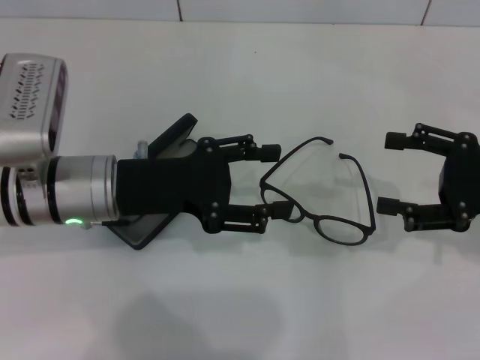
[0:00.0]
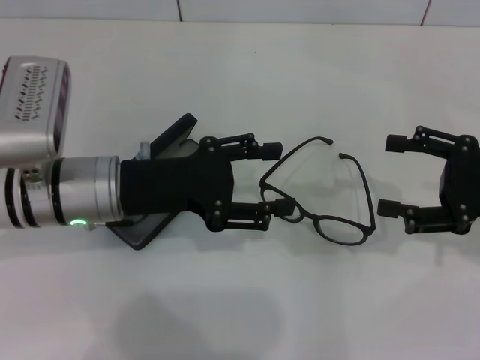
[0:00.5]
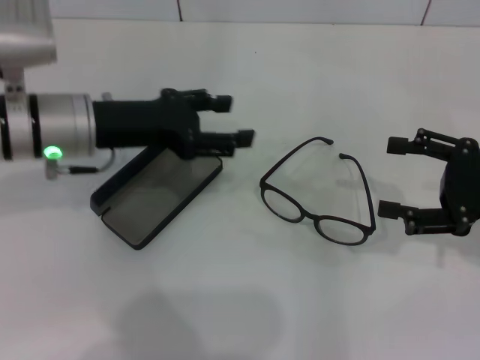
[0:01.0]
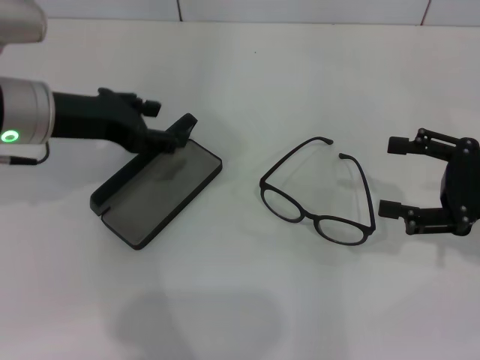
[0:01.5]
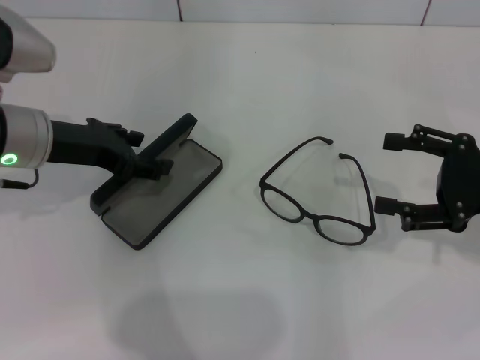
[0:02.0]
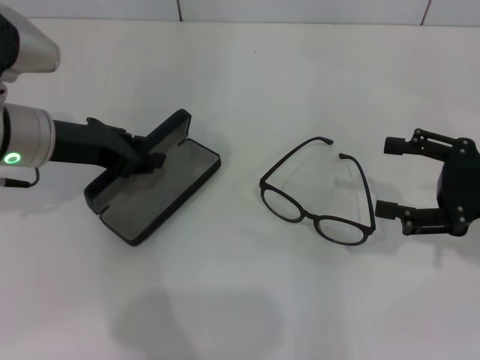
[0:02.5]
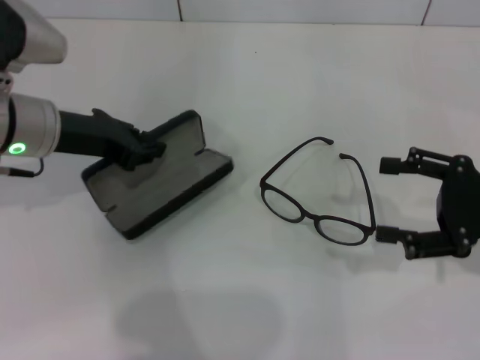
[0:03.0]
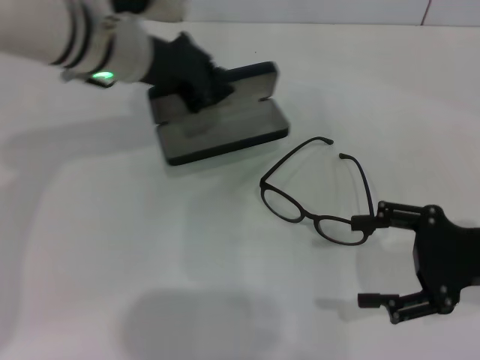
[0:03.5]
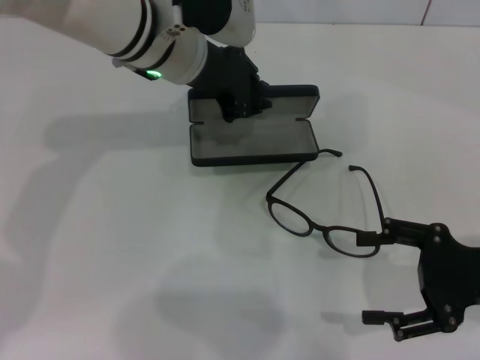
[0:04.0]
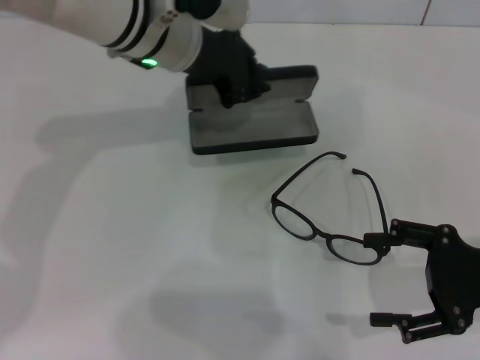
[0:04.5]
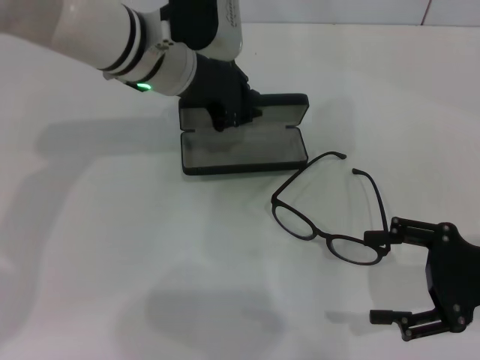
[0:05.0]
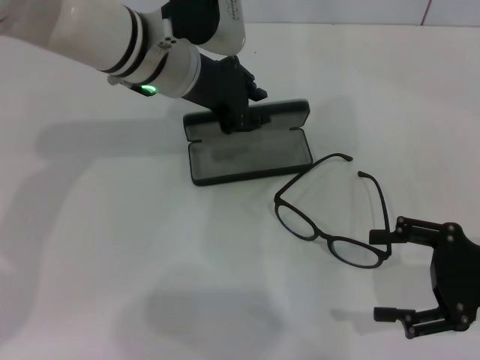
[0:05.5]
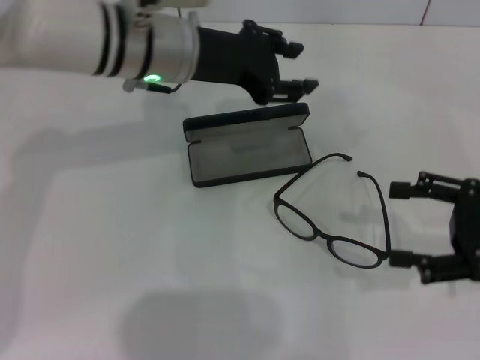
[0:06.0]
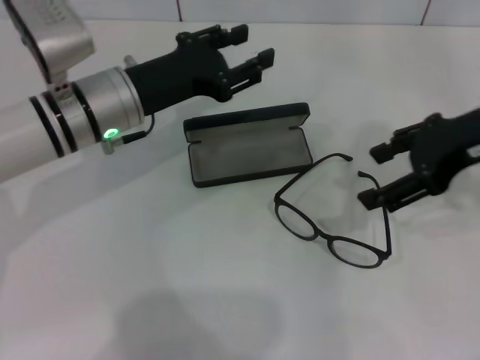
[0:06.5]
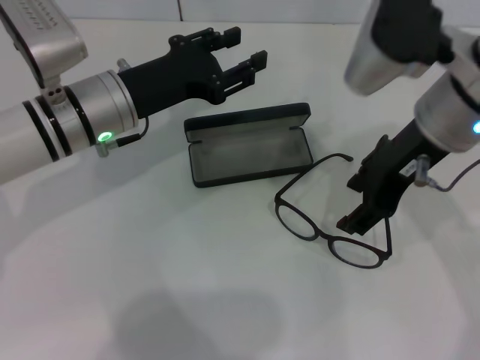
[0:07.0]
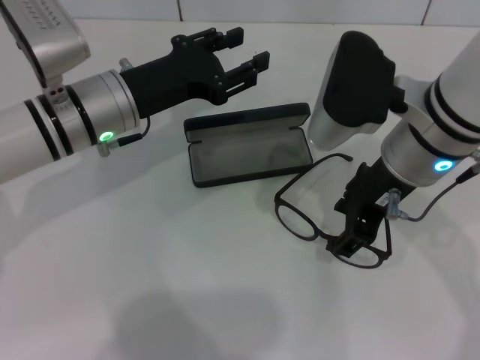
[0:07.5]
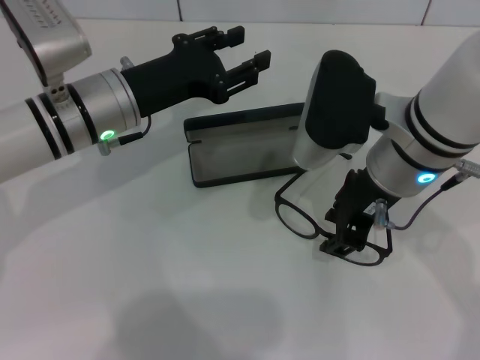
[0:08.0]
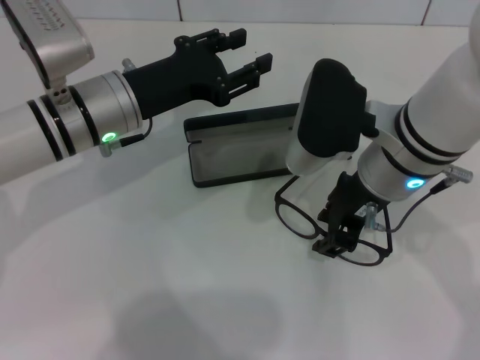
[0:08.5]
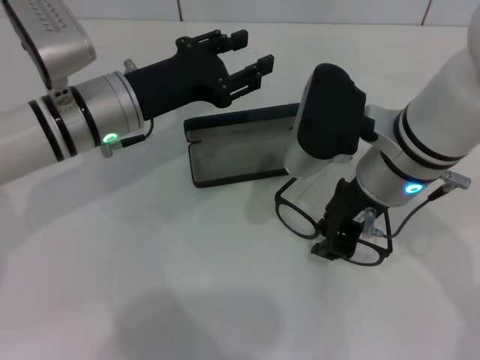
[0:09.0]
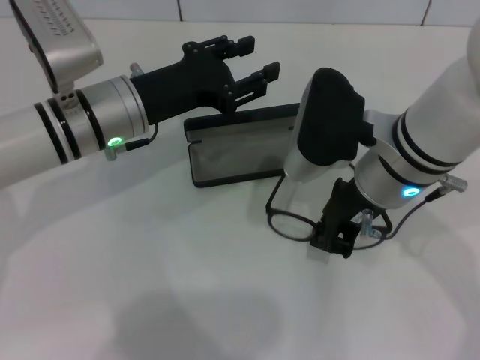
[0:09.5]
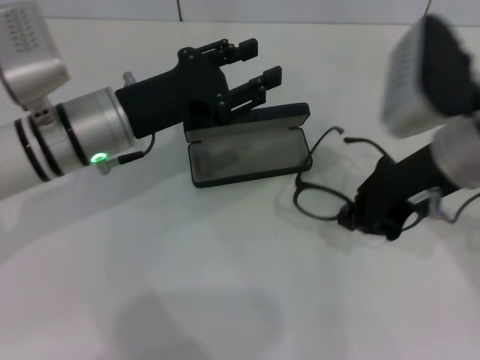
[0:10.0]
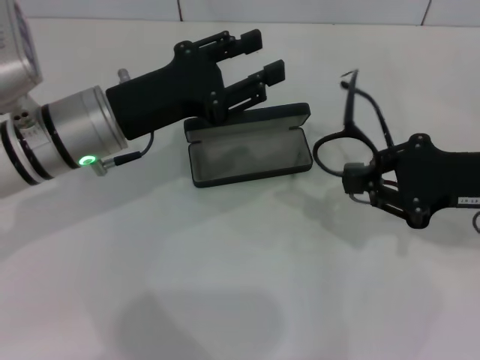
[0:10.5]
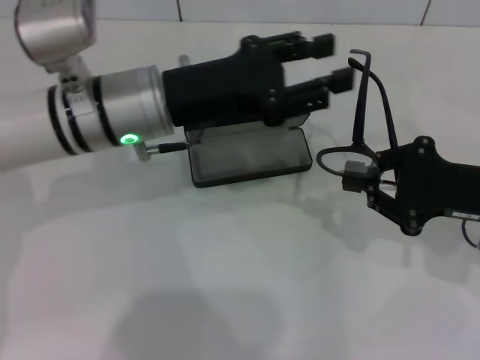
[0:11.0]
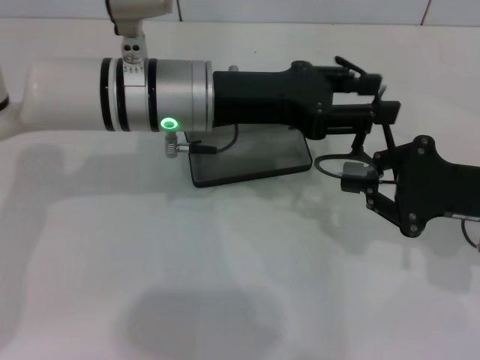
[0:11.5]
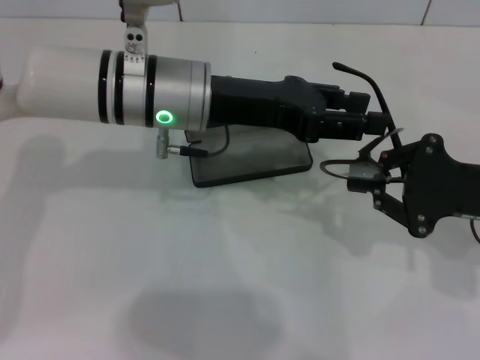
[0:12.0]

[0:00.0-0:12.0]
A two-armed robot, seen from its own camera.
Step, 0.0 to 2.5 s: Grab the glasses case with your left hand.
Step, 3.0 to 5.0 s: Place the glasses case in the center of the table with your left hand.
Step, 5.5 to 9.5 s: Grab the eyeglass frame with your right hand.
0.0 to 2.0 s: The left gripper shifts about 5 cm to the left.
2.0 to 4.0 s: The right gripper shifts by some 5 cm, while the left gripper moves to the right and forward, about 15 cm, and closes its fingers.
4.0 to 6.0 s: The left gripper opens its fingers.
6.0 to 8.0 s: The right gripper moves to the left, about 20 cm, and closes up; the left gripper heads downward and to the left, covering roughly 10 cm.
8.0 to 10.0 s: The right gripper heads to the right, covering about 5 cm, and closes its fingers.
10.0 to 12.0 s: The right gripper travels to the right and downward by roughly 10 cm. Meanwhile the left gripper travels to the right by some 5 cm.

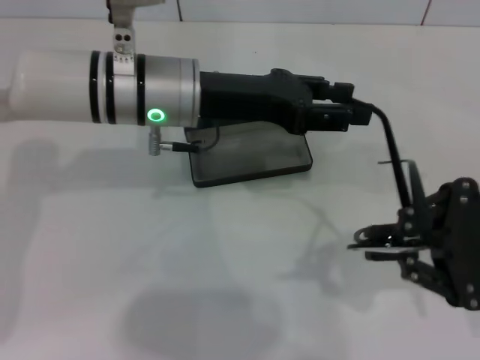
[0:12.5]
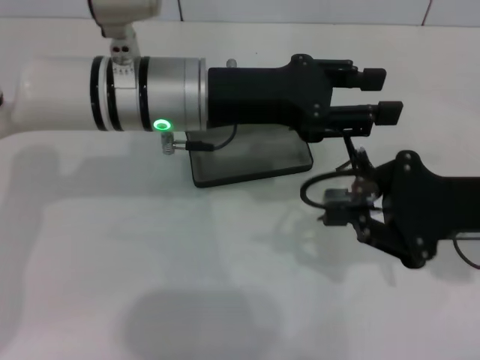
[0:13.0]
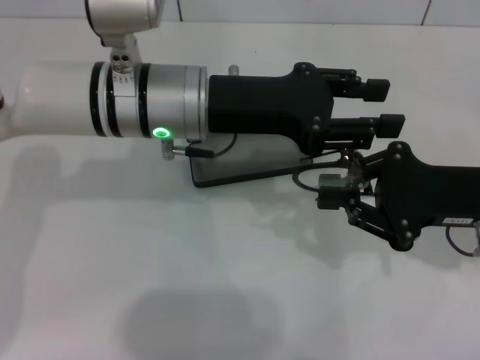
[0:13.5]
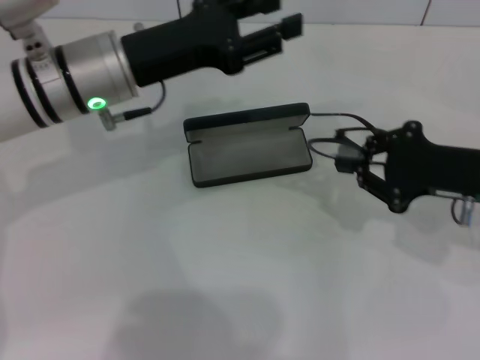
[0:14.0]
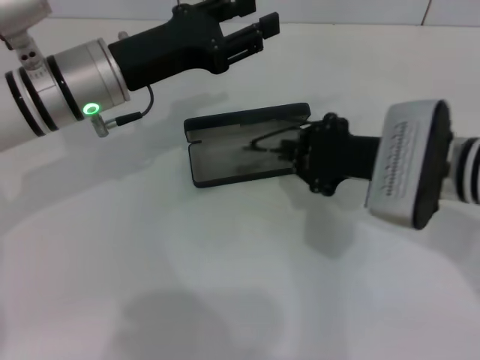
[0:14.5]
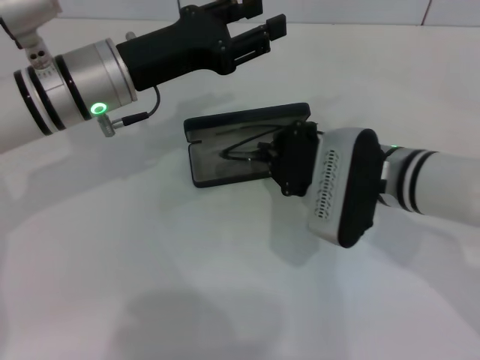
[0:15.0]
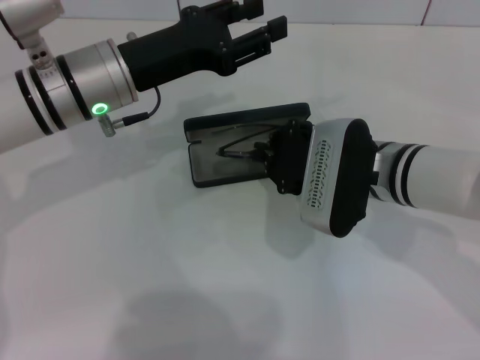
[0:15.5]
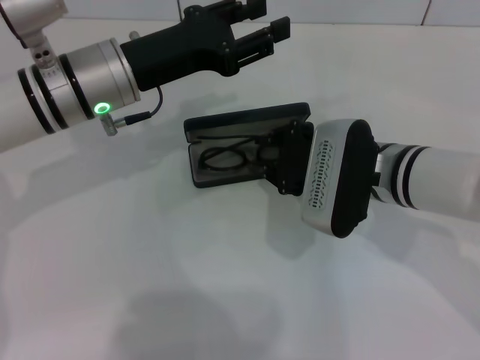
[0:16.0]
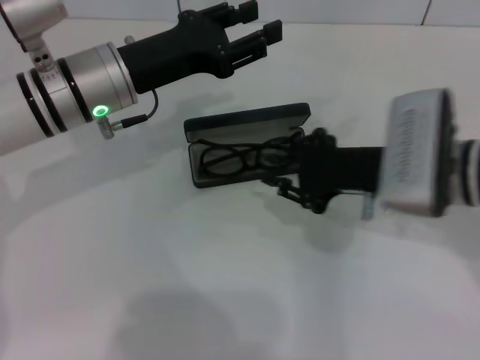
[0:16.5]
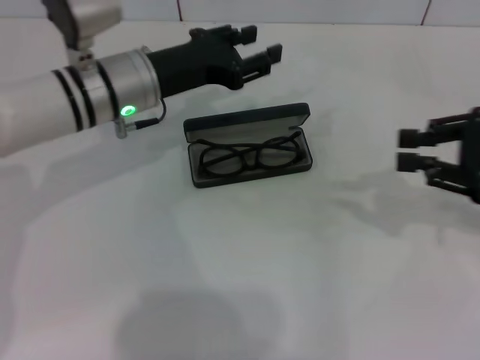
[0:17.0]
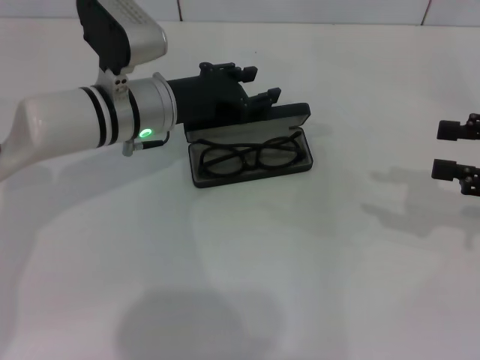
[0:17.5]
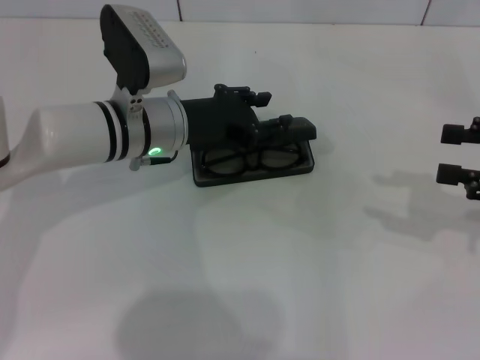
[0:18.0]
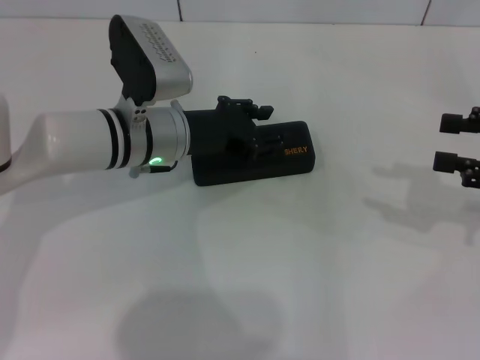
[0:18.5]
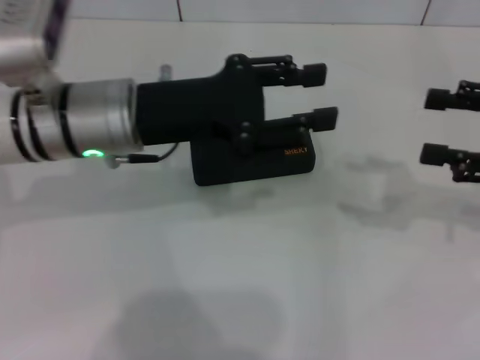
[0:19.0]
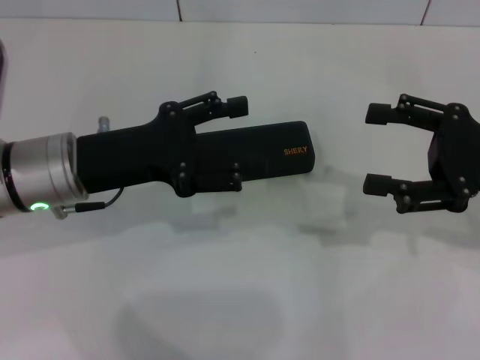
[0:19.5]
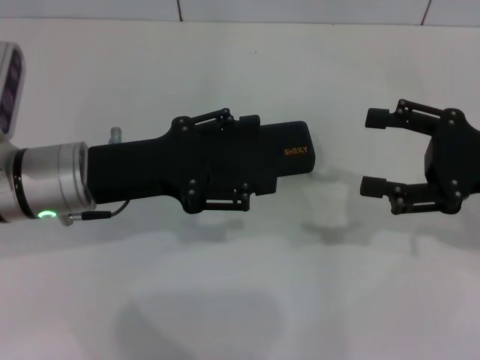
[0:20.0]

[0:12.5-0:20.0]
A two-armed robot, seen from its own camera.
Step, 14.0 to 16.0 s: Put the glasses into the case with your right hand.
Step, 16.5 to 18.5 s: Close the glasses case with your left hand.
12.5 to 14.5 s: The right gripper heads to the left and forward, covering approximately 15 cm. The left gripper moves to the left, approximately 5 cm.
14.5 to 16.5 s: There are only small adjustments of the grippers.
16.5 to 18.0 s: The left gripper ends up some 5 cm from where it was. The right gripper shifts about 20 cm to the right, and opens.
18.0 to 20.0 s: The left gripper goes approximately 10 cm backward and to the left, and opens; the right gripper goes roughly 5 cm to the left, and opens its fingers.

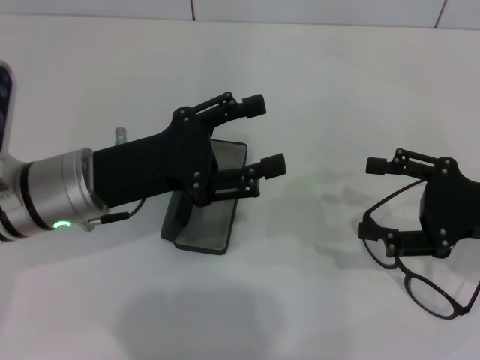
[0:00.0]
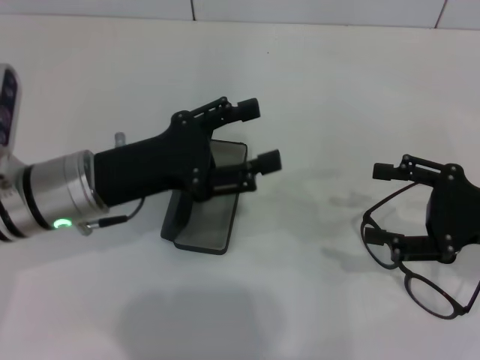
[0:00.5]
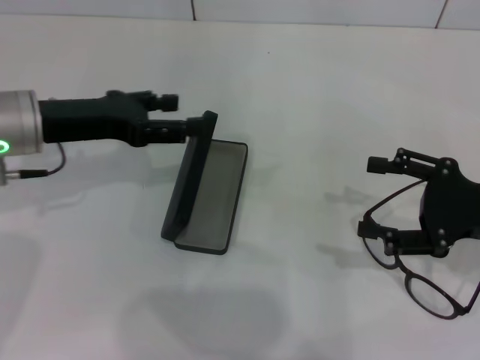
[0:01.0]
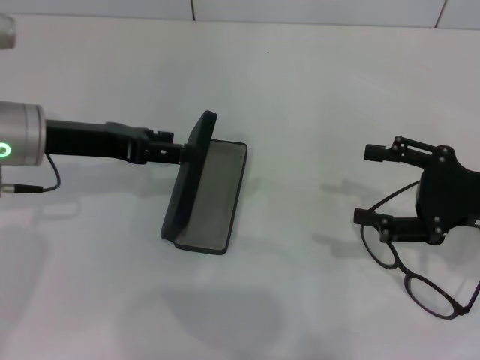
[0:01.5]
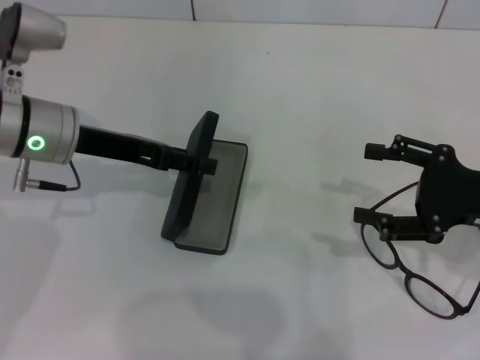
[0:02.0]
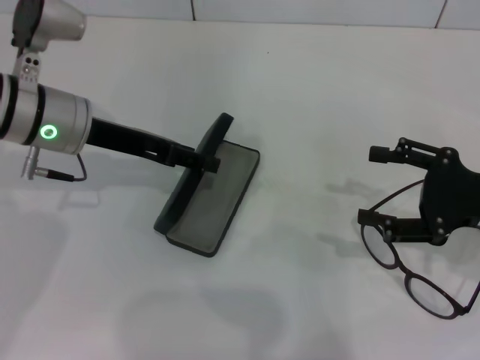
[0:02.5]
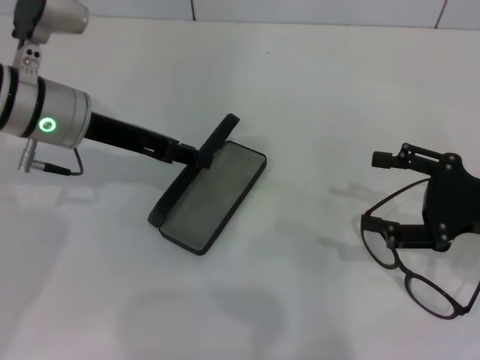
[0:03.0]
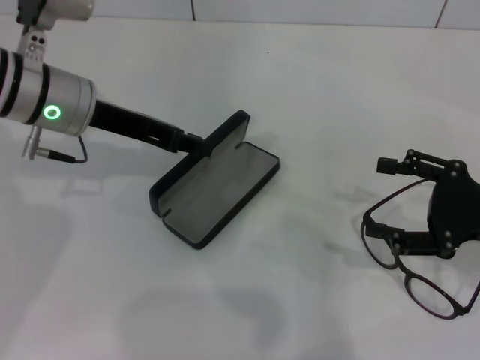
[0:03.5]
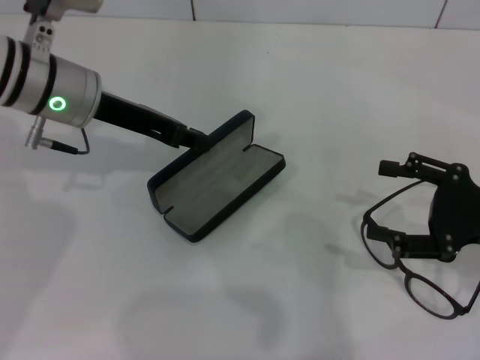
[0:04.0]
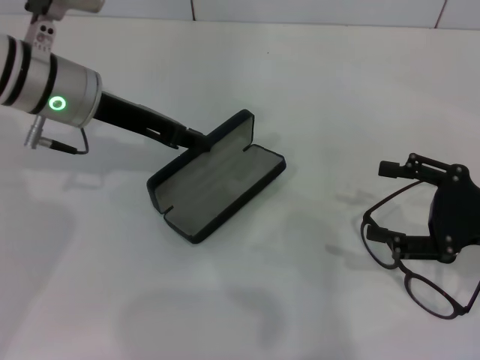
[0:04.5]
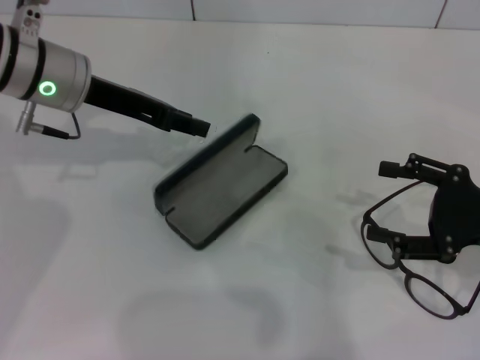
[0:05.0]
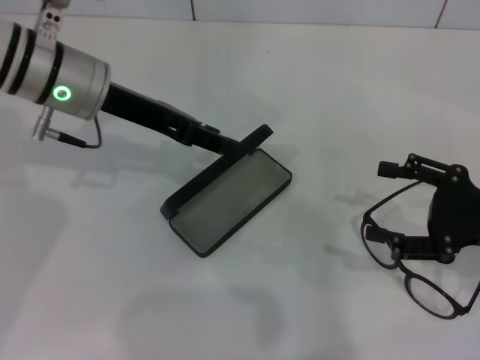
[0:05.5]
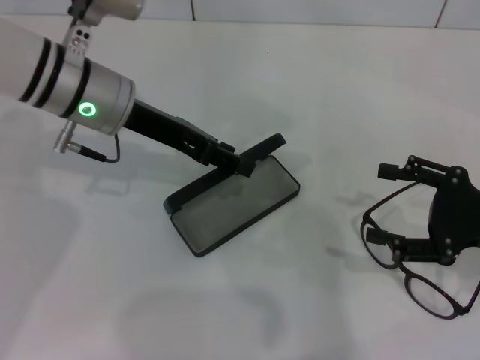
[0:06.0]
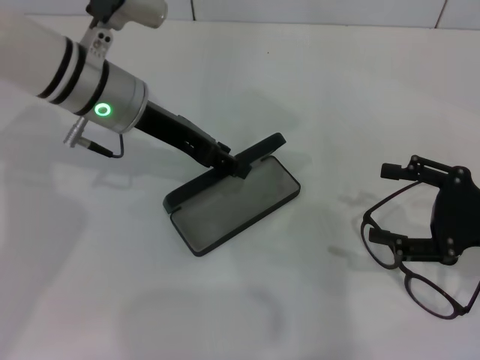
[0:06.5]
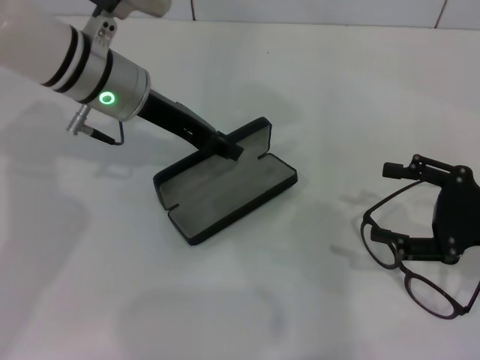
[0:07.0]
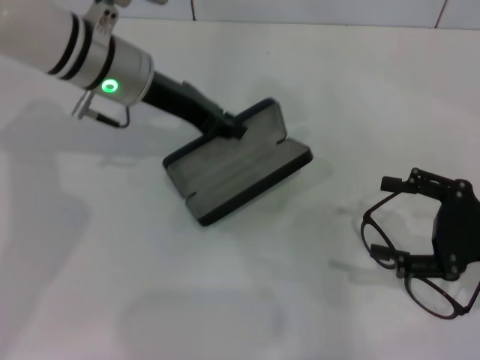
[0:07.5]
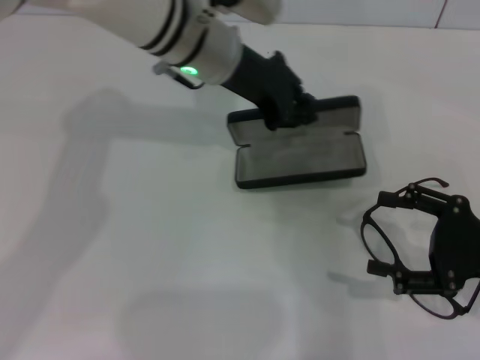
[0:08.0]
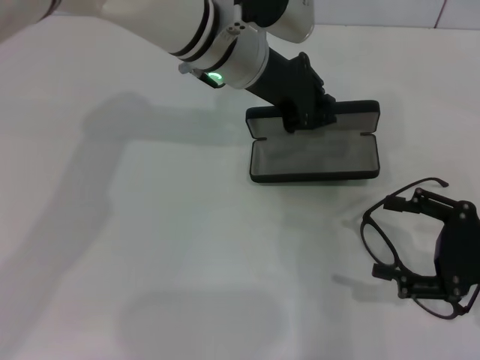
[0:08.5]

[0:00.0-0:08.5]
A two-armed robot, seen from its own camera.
Step, 0.0 to 2.5 s: Grab the glasses case with your left hand.
0.0 to 2.0 s: The left gripper travels forward by some 5 cm.
2.0 to 4.0 s: The left gripper closes.
4.0 to 6.5 s: The left gripper opens up.
6.5 to 8.5 s: The left gripper goes roughly 10 cm to the right, and closes up.
